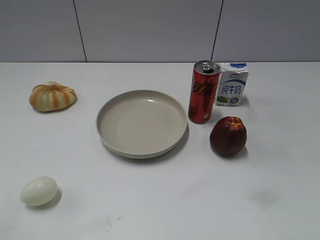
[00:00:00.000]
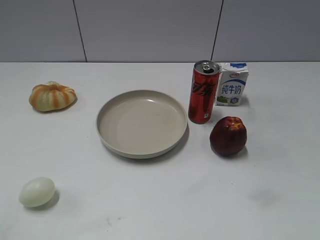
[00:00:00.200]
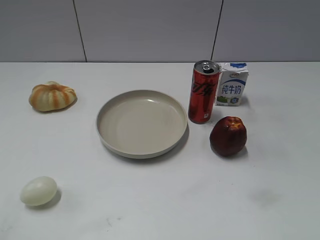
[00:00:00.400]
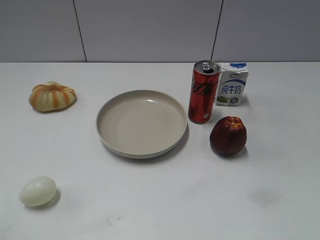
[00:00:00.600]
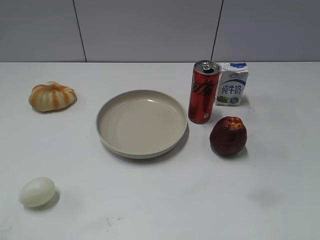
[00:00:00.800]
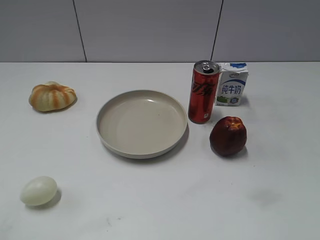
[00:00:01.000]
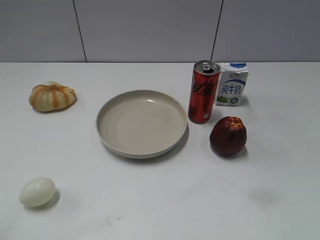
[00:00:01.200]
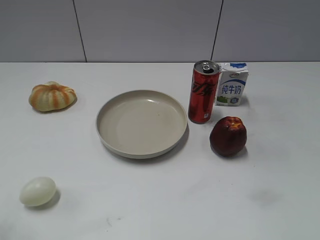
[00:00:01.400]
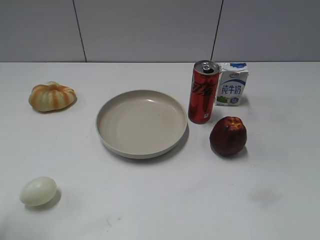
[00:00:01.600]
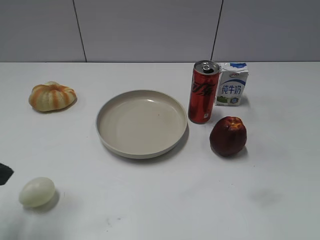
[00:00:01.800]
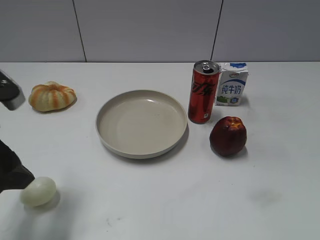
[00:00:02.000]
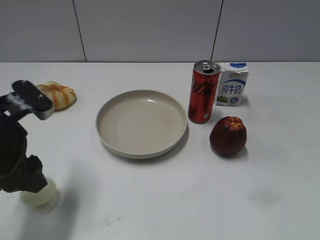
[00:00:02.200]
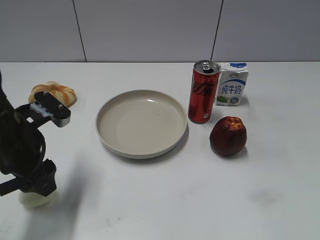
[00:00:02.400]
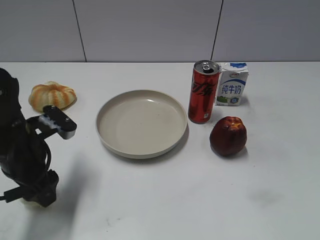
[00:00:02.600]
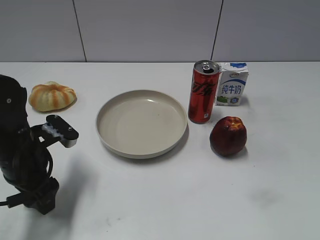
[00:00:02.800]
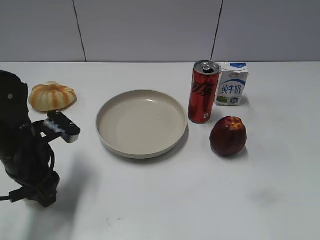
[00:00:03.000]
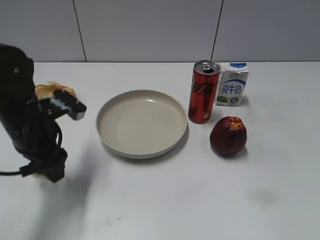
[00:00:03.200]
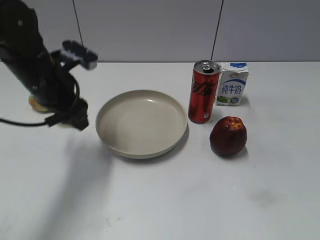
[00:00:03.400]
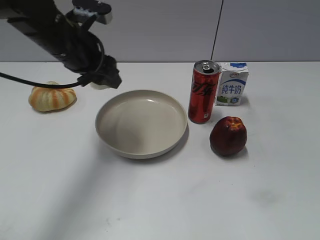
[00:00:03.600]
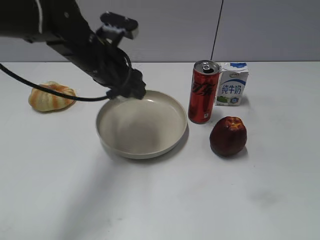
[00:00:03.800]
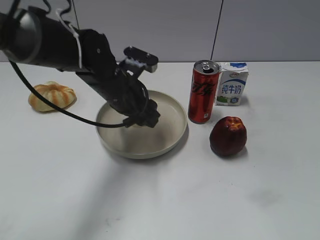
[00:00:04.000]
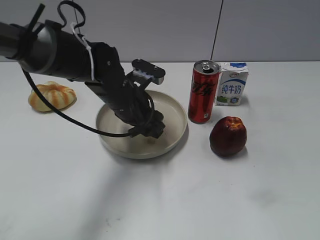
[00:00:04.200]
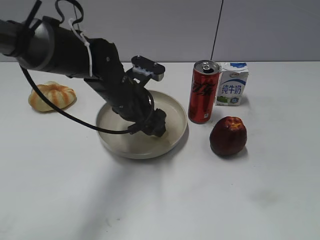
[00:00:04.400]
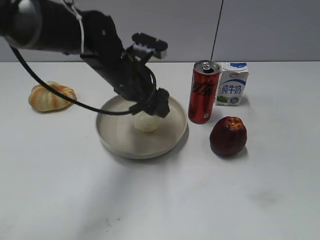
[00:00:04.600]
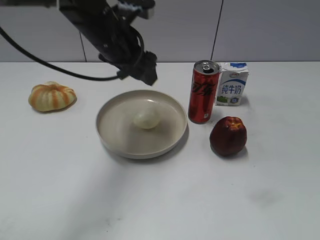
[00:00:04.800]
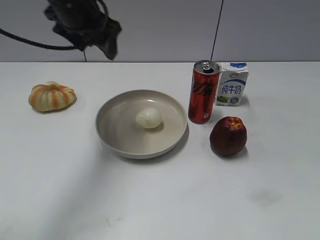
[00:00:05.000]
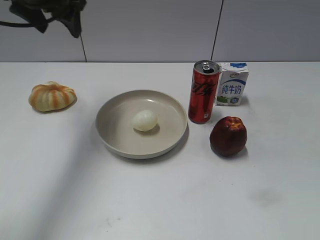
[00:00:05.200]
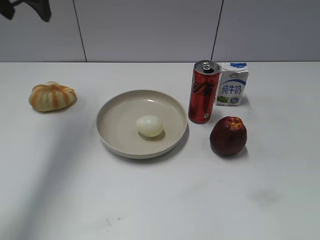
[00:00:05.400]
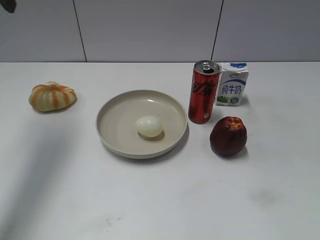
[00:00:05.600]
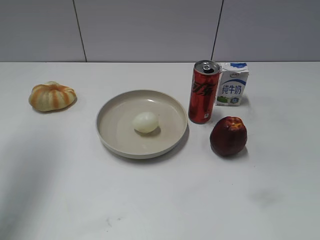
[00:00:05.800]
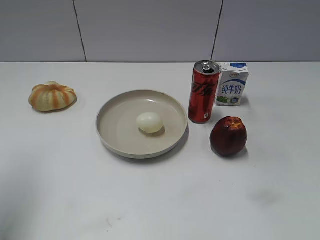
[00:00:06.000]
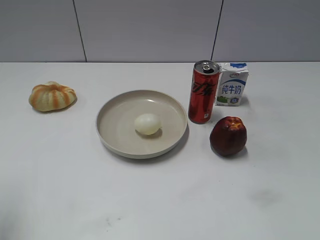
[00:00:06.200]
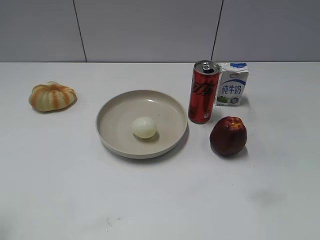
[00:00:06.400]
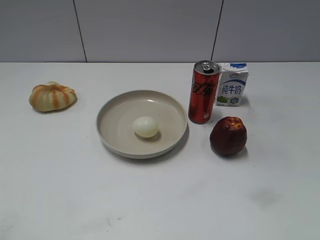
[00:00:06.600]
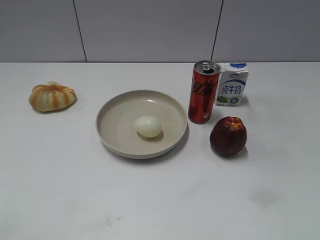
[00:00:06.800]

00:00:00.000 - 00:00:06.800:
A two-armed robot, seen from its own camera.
Step, 00:00:00.800 - 00:00:02.800: Grasp the egg with left gripper.
Step, 00:00:03.000 - 00:00:04.600: Place the egg on the plate with left gripper.
00:00:01.400 - 00:00:02.800: The left gripper shifts some 25 cm downward, forward and to the right.
00:00:02.800 - 00:00:04.000: The left gripper travels to the right and forward by some 15 cm, and closes up.
00:00:04.000 - 00:00:05.400: The left gripper moves upward and to the left, roughly 25 cm, and opens its fingers.
00:00:05.400 - 00:00:06.800: The left gripper goes about 35 cm backward.

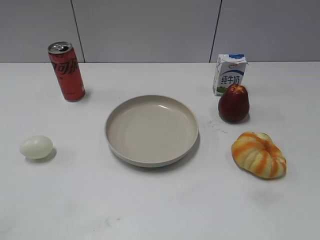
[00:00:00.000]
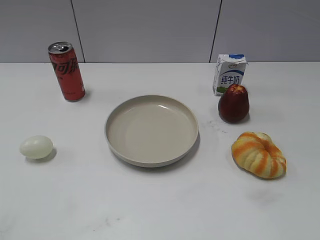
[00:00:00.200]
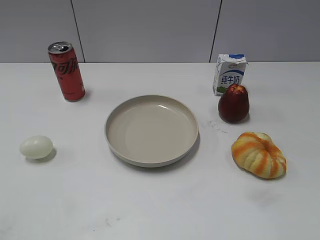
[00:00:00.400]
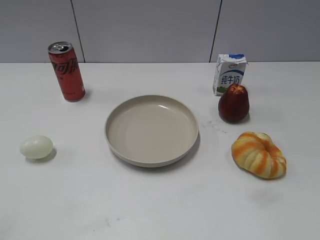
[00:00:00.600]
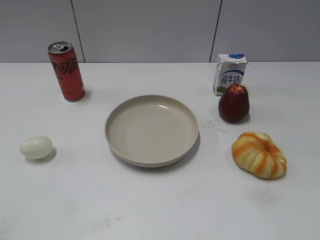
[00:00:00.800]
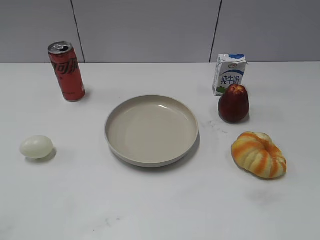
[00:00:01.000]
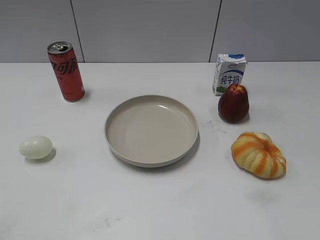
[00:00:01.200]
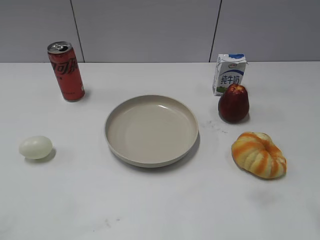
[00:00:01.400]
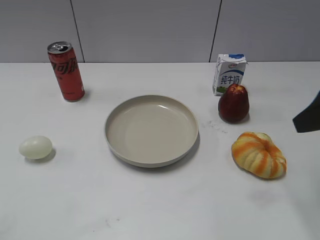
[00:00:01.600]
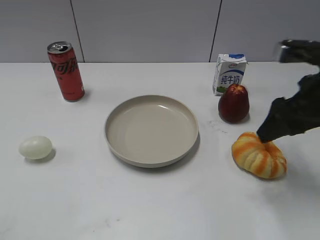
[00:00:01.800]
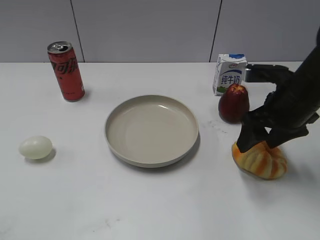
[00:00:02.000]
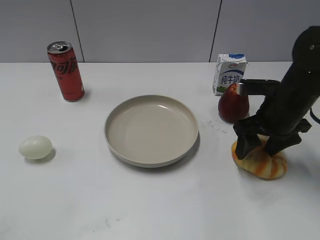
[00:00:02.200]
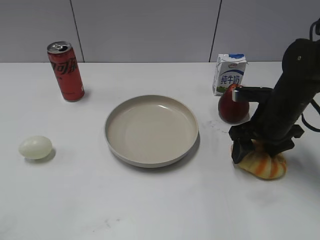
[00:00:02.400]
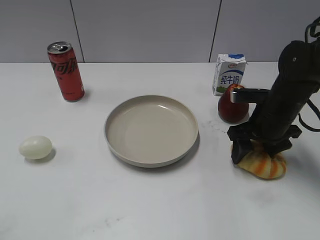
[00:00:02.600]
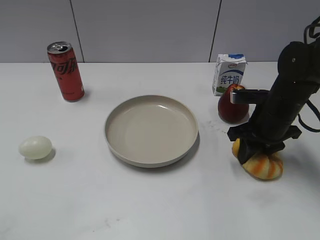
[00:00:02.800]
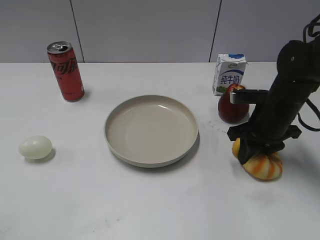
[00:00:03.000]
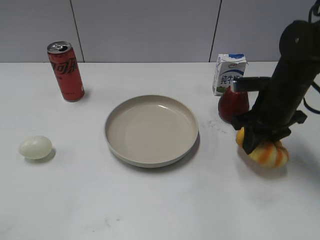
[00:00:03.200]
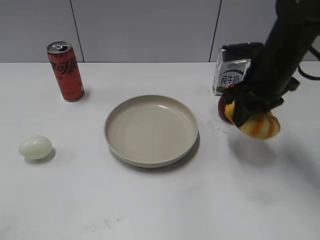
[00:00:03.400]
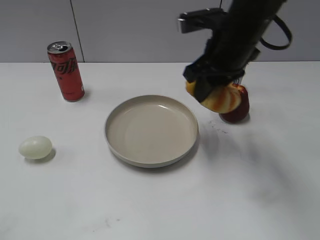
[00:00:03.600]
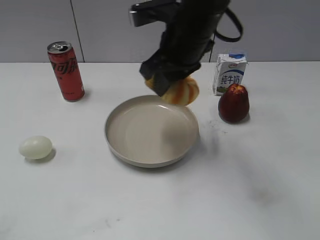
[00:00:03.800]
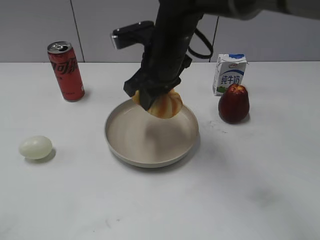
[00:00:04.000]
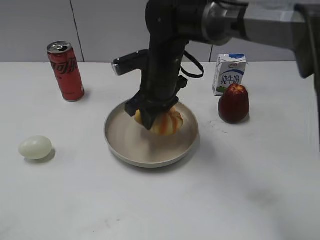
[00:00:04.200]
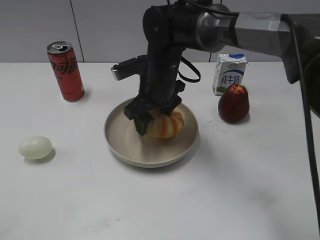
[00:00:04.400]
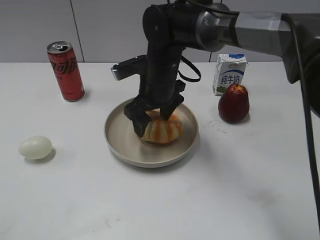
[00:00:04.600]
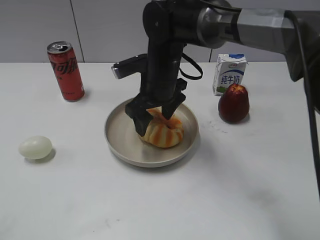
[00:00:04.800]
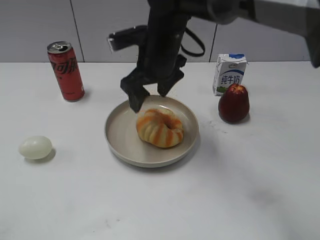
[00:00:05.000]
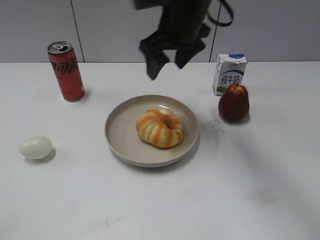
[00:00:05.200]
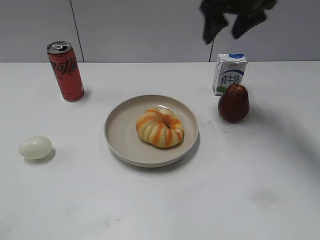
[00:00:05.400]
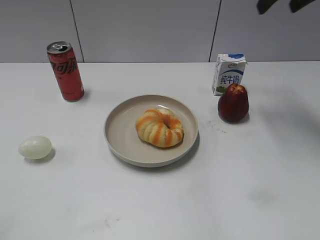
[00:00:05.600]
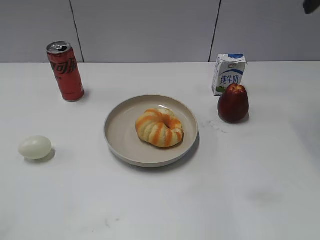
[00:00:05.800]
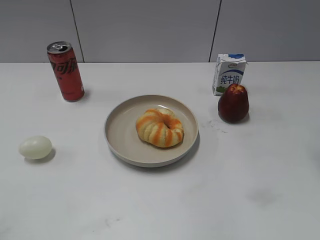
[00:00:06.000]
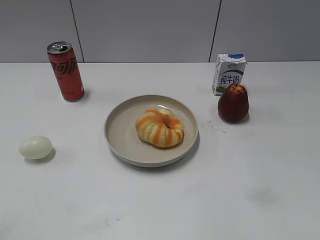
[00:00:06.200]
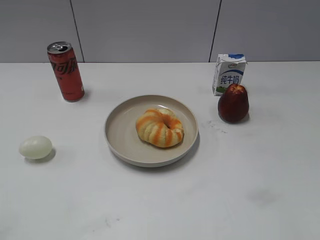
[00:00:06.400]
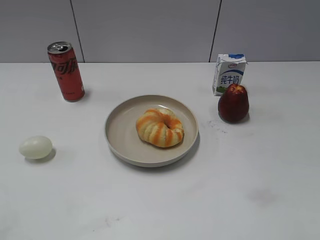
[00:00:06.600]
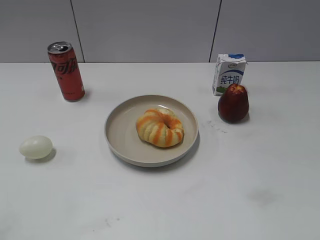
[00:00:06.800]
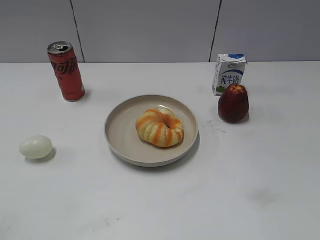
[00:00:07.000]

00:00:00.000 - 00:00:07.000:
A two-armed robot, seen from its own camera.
Step, 00:00:00.800 - 00:00:02.800: Grasp the round bread with right gripper.
Step, 00:00:03.000 - 00:00:04.800: Place the round bread on the plate with right gripper.
00:00:01.400 - 00:00:02.800: The right gripper heads downward and forward, covering some 25 cm, and closes.
00:00:02.800 - 00:00:04.200: The right gripper goes about 20 cm to the left.
00:00:04.200 - 00:00:05.600: The right gripper goes some 30 cm to the right and upward, and opens its fingers.
00:00:05.600 - 00:00:07.000: The right gripper moves backward, some 40 cm.
